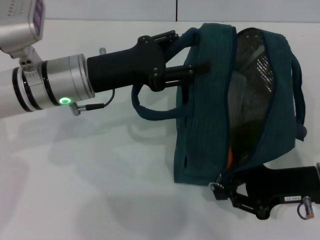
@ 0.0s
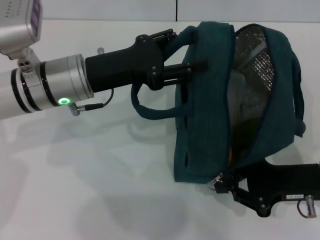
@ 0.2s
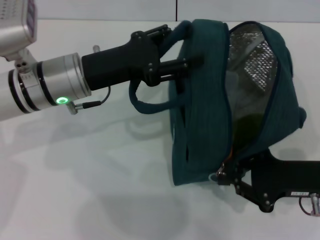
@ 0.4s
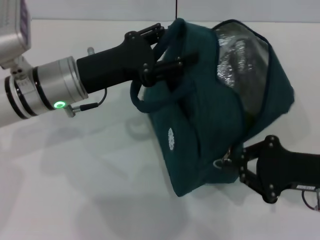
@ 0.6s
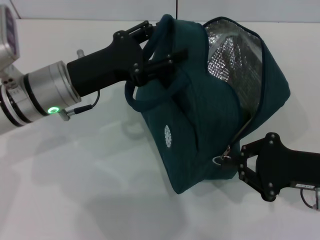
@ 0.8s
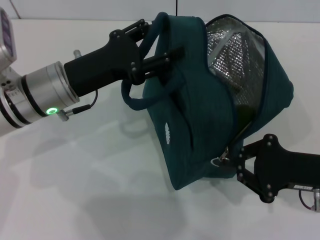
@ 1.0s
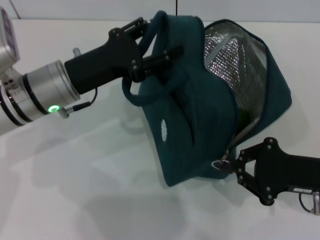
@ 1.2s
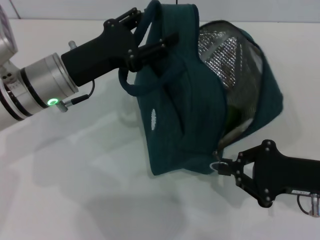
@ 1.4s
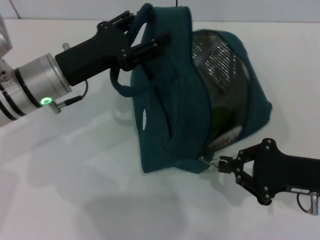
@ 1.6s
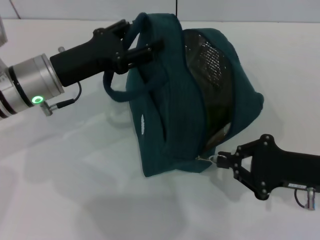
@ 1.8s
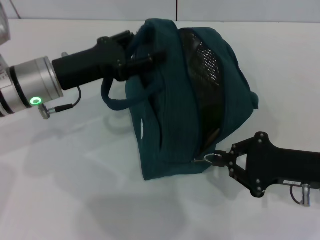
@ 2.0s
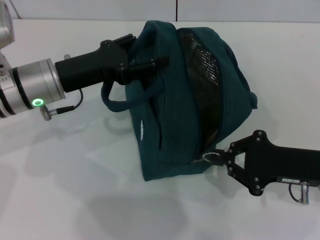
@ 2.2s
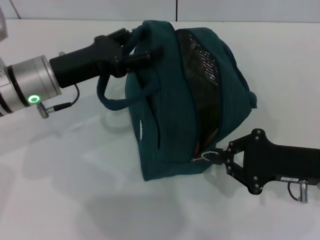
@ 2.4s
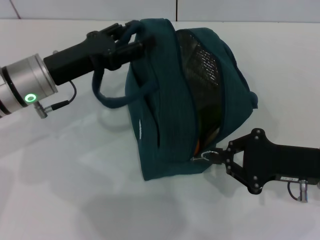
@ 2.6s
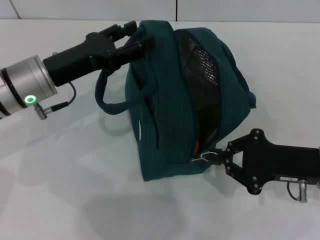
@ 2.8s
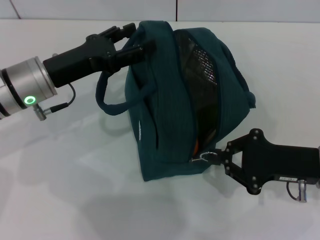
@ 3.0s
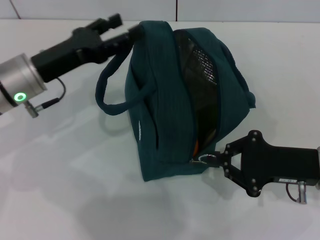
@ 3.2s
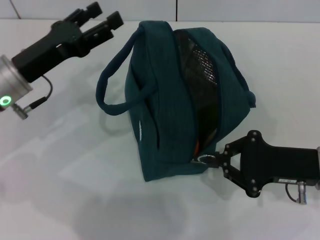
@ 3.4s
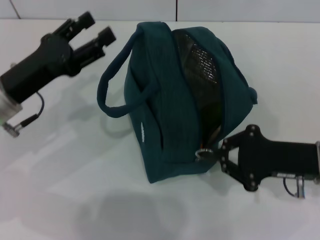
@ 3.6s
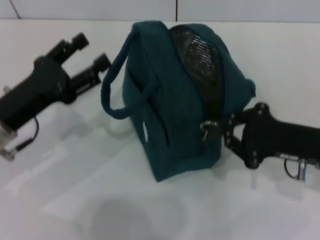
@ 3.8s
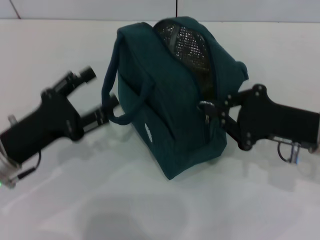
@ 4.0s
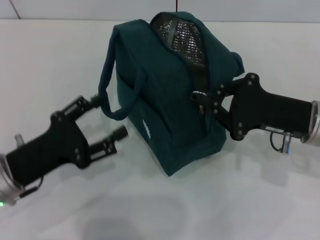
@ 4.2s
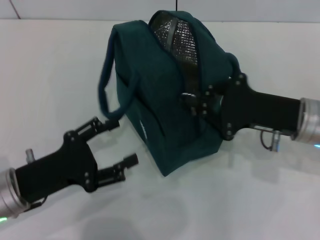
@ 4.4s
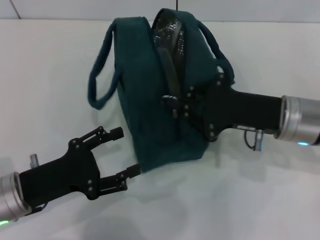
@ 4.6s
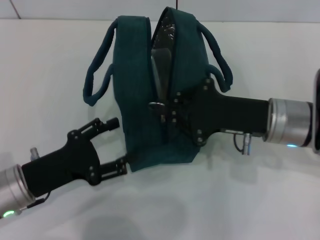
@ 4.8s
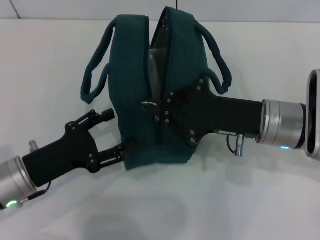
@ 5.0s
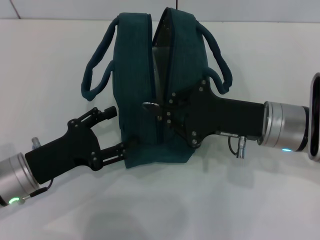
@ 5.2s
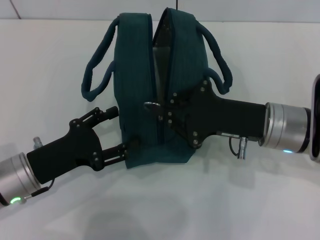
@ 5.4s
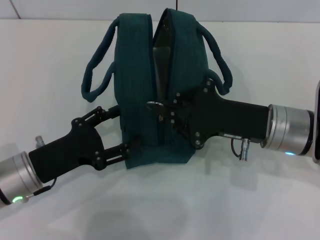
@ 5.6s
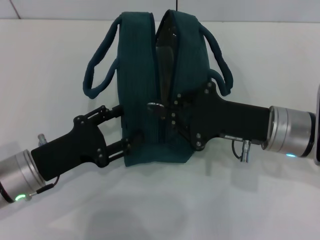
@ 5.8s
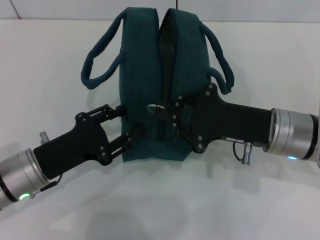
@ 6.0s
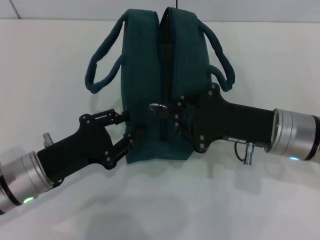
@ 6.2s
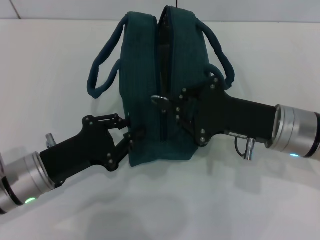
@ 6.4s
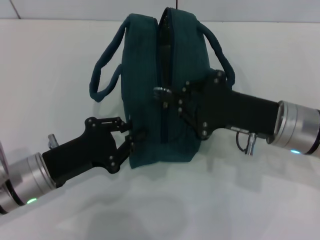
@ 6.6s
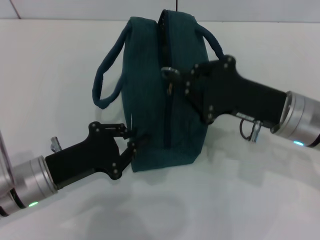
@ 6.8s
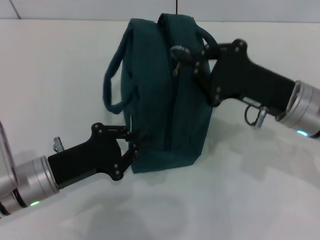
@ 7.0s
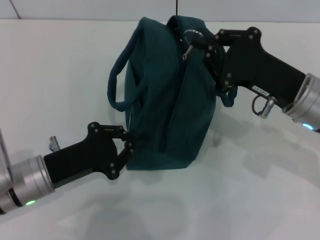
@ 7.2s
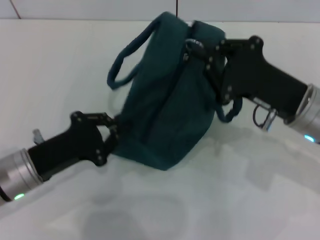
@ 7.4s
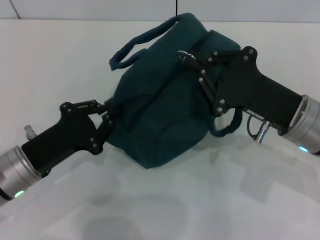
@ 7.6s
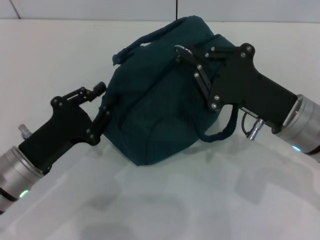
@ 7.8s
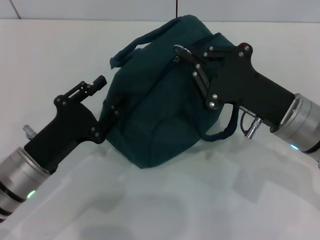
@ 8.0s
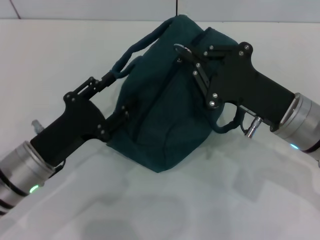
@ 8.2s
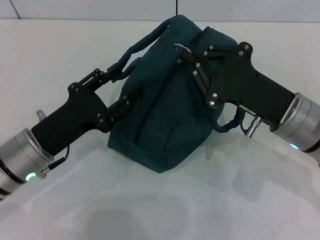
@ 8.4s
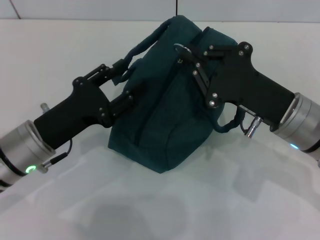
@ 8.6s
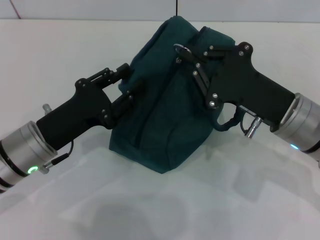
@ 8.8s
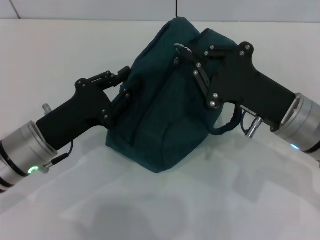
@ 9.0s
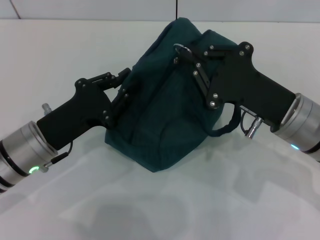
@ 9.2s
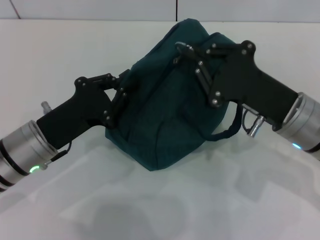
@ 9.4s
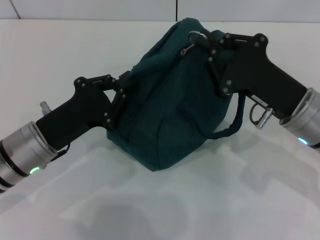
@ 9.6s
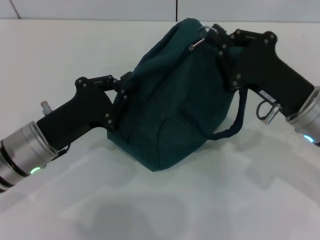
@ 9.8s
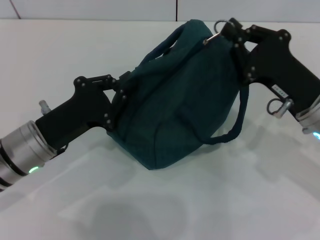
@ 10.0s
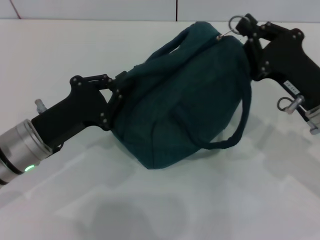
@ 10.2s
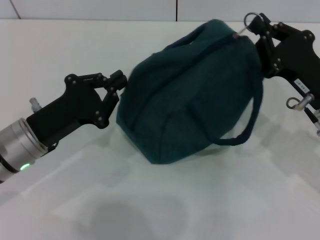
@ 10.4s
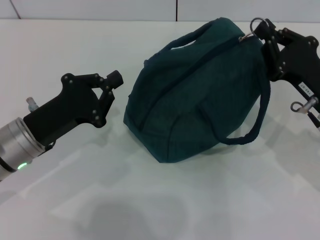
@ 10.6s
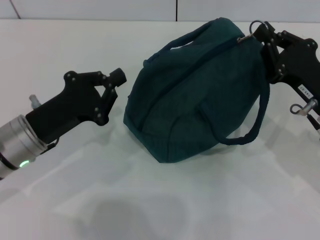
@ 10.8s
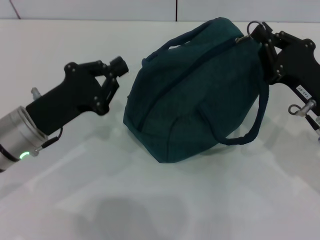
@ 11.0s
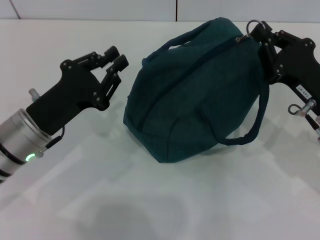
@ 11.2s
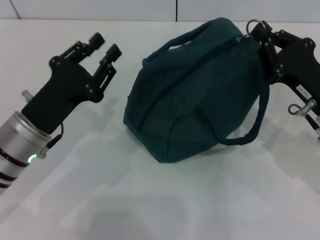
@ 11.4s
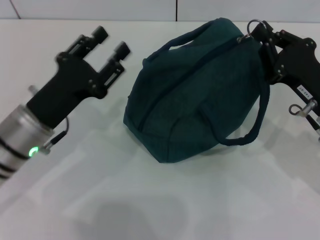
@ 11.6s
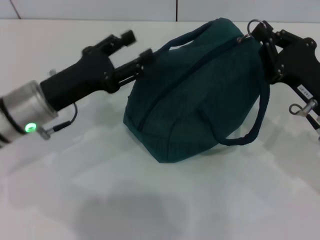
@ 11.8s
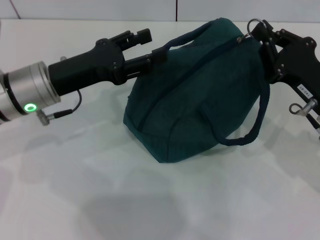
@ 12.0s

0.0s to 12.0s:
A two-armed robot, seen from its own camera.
Step, 0.0s to 2.8s: Hold the lunch bag with your left hand.
0.0s to 1.6s: The right gripper closes.
1.6s to 3.0s: The grippers move only a little.
3.0s to 4.4s: The right gripper moves approximately 5 cm; the left gripper heads backward and downward, covering about 15 cm.
6.0s to 7.6s: The left gripper closes its fingers.
7.6s to 9.0s: The left gripper opens, then closes once more.
9.0s to 10.4s: The right gripper goes some 5 cm to the right.
10.4s to 12.0s: The left gripper is displaced forward and upward by about 10 cm, and opens its fingers.

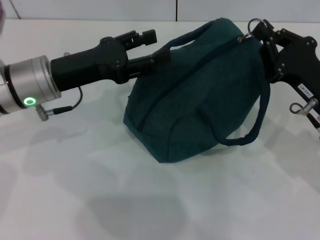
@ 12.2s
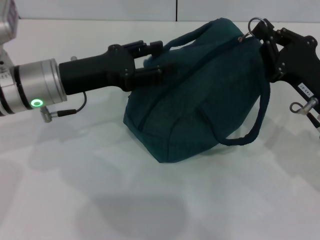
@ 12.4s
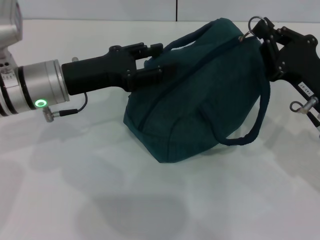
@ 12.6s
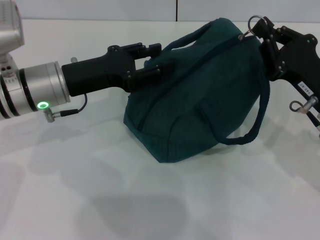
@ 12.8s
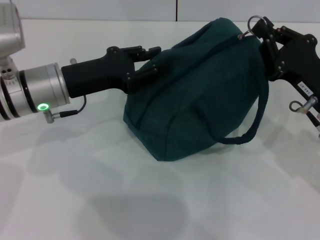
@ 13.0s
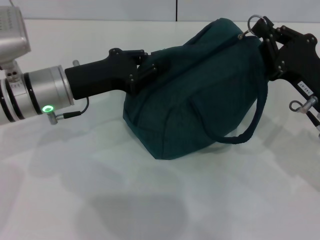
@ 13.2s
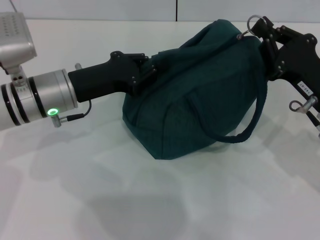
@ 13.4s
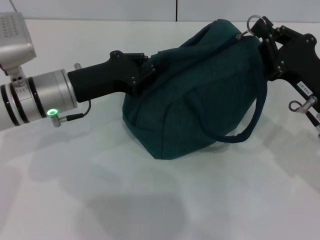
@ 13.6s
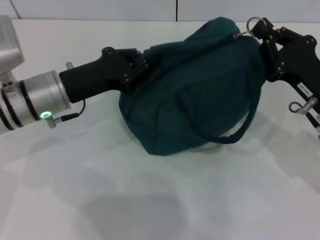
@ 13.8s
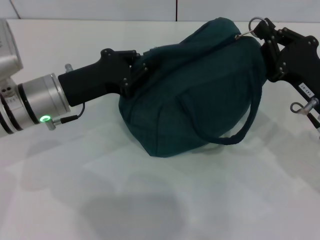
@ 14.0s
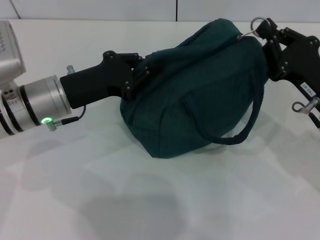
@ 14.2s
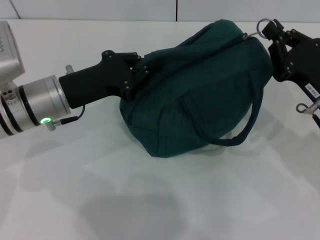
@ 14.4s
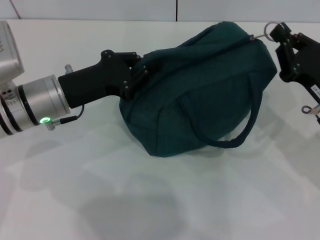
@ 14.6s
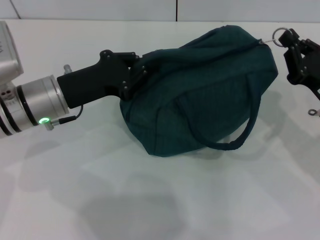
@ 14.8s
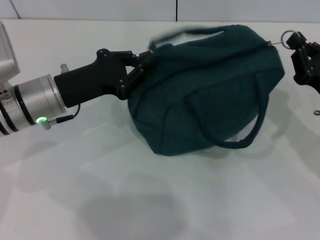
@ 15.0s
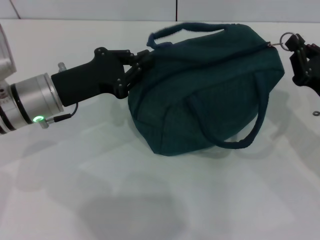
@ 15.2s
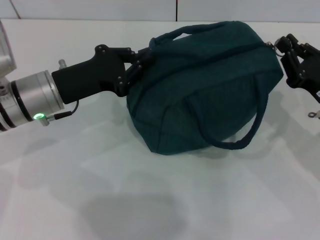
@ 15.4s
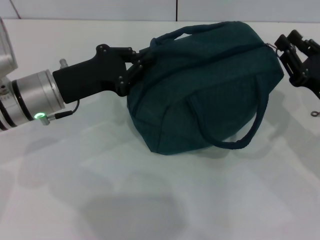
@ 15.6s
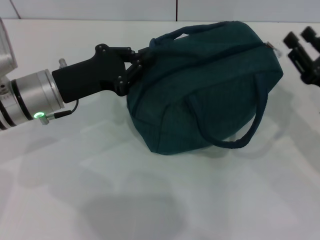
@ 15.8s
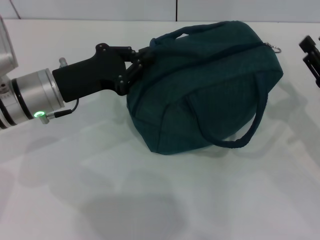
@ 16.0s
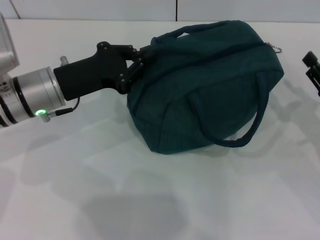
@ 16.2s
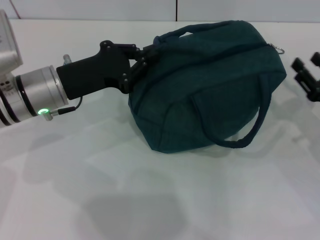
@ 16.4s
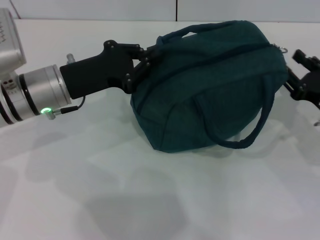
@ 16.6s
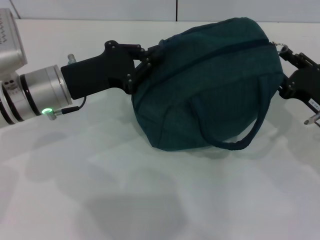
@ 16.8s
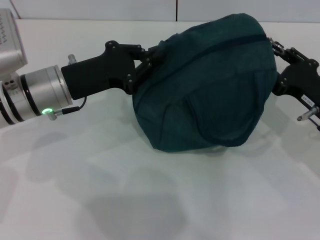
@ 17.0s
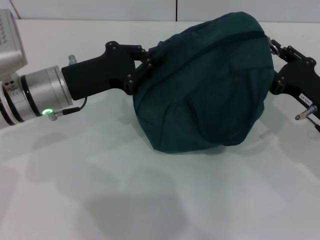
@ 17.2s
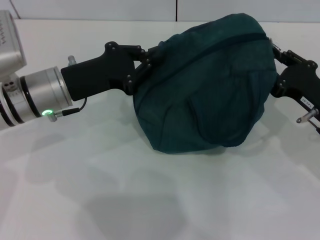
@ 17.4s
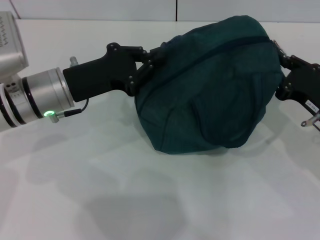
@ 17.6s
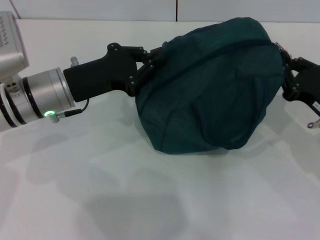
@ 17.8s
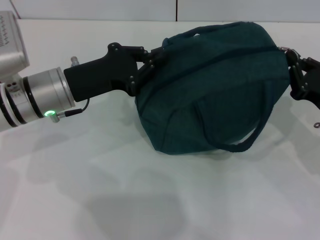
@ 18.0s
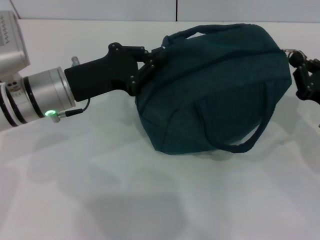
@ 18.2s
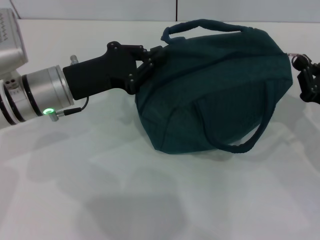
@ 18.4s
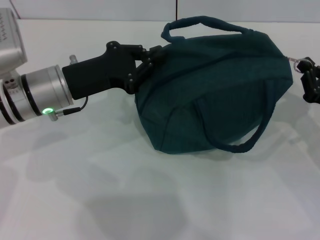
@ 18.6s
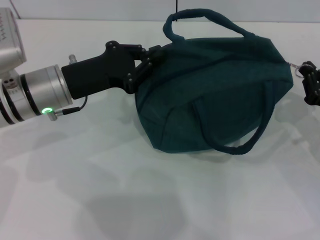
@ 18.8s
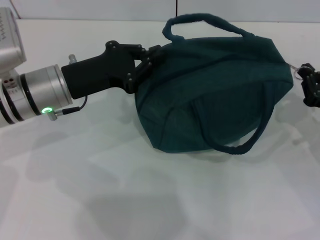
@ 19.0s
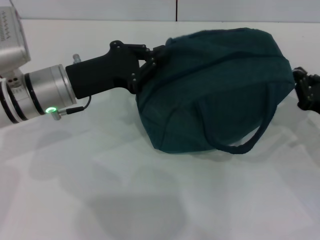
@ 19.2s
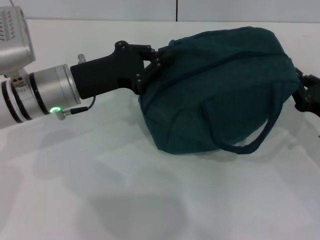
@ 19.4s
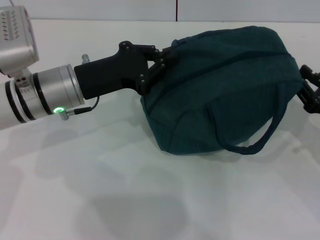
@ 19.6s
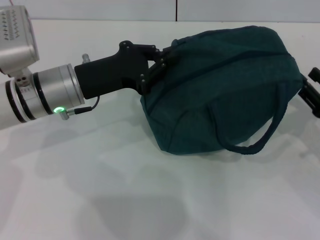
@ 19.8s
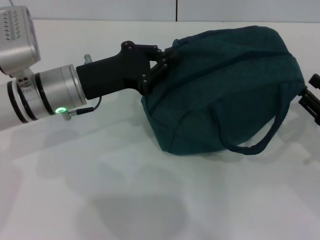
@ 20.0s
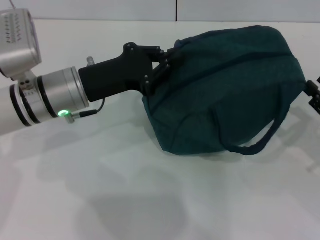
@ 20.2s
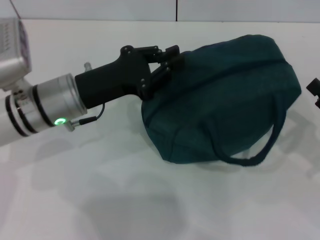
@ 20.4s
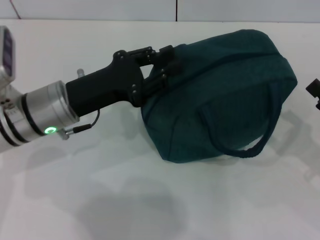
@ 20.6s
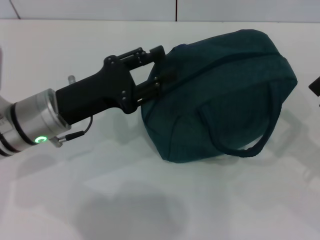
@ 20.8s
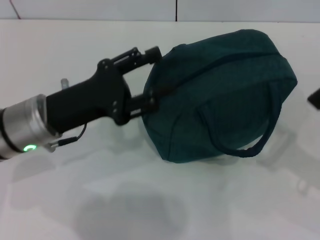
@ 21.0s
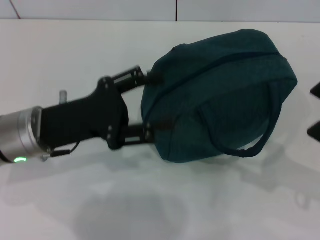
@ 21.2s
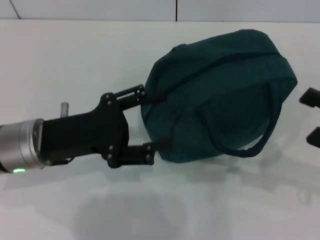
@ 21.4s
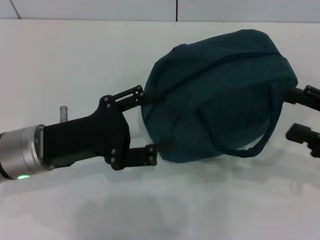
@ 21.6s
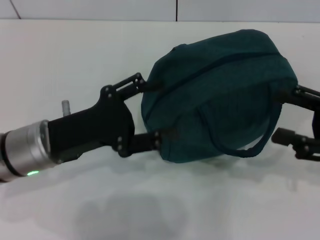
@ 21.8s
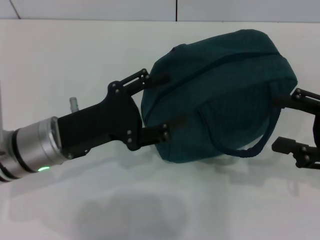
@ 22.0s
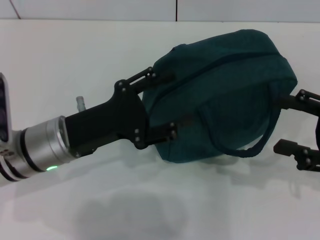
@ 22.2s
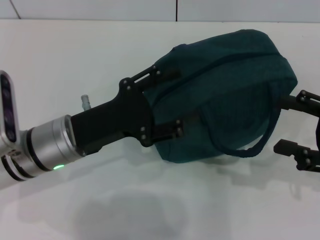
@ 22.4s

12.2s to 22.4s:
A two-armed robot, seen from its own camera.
Step, 12.2s to 20.2s: Zip up the lunch bag with your right hand.
Step, 20.4s to 20.6s: Hold the lunch bag with your left hand.
12.2s to 13.6s: The left gripper closes up.
13.6s to 15.2s: The grippers stay close to where they were, moving slightly.
15.2s to 16.6s: The right gripper opens up.
16.6s to 18.0s: The right gripper closes its fingers.
18.0s to 19.4s: The grippers move only a little.
19.4s to 21.0s: Both grippers move backward, approximately 5 cm. The left gripper opens its fingers, while the right gripper opens its fingers.
21.0s to 22.4s: The left gripper opens its fingers.
